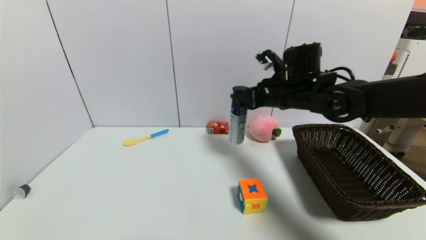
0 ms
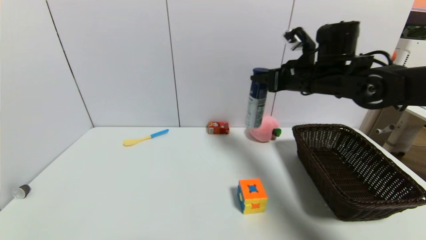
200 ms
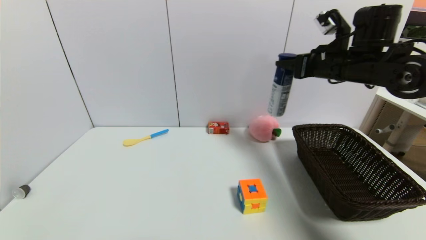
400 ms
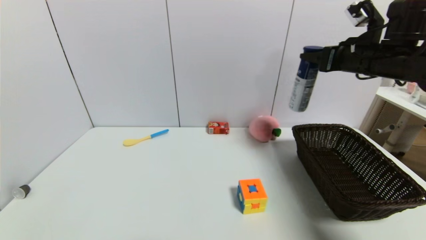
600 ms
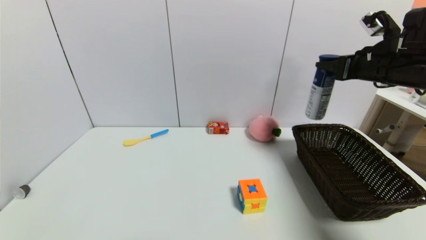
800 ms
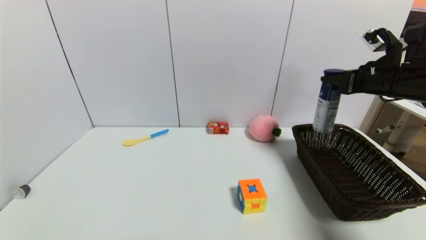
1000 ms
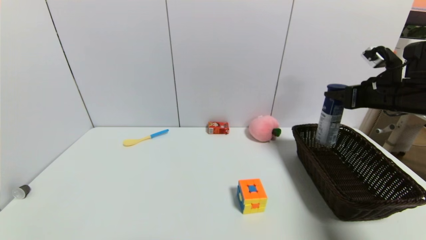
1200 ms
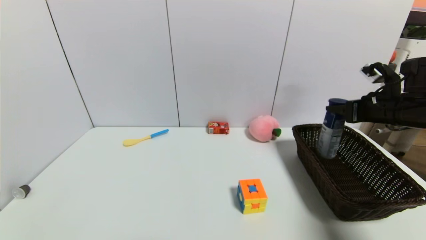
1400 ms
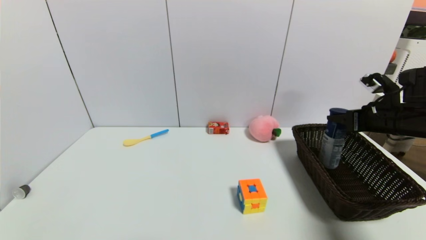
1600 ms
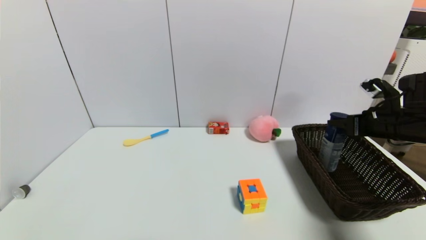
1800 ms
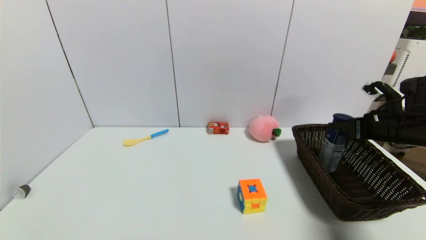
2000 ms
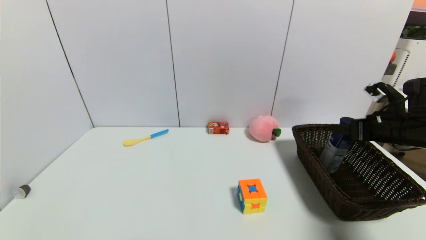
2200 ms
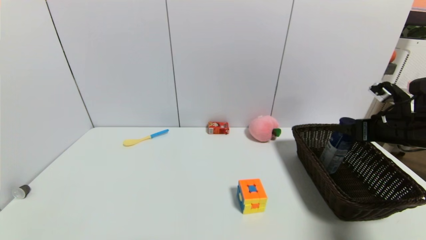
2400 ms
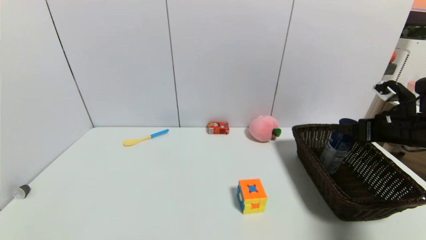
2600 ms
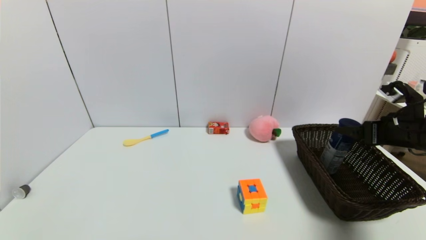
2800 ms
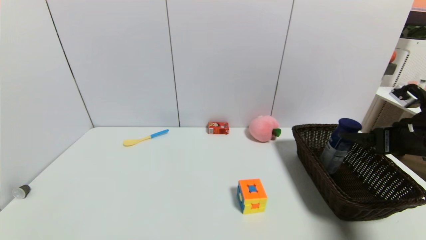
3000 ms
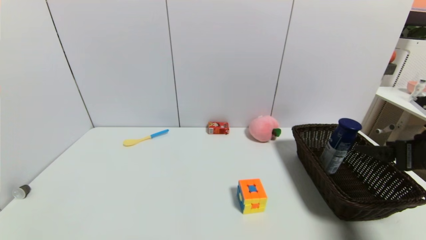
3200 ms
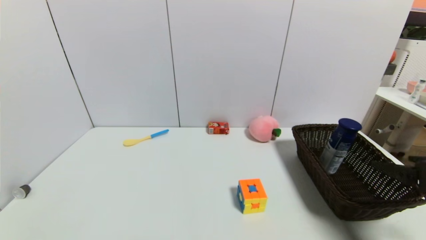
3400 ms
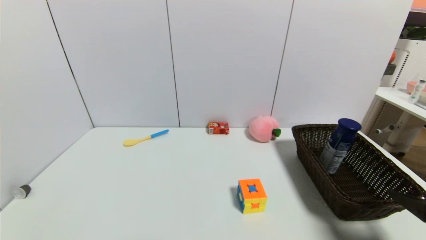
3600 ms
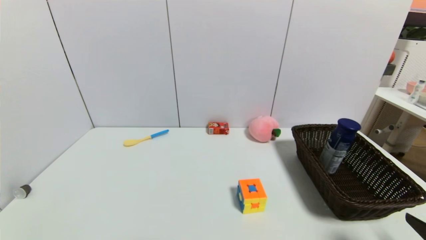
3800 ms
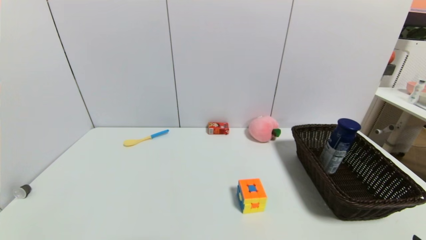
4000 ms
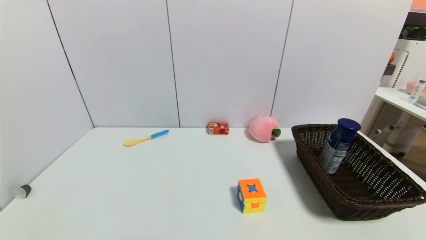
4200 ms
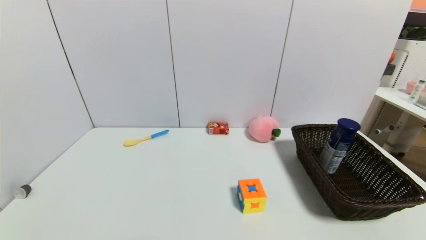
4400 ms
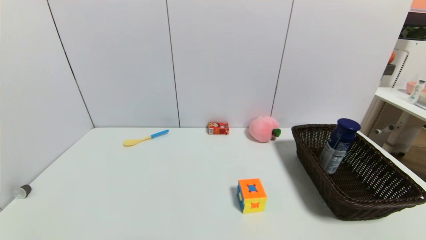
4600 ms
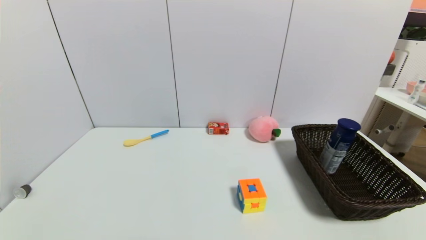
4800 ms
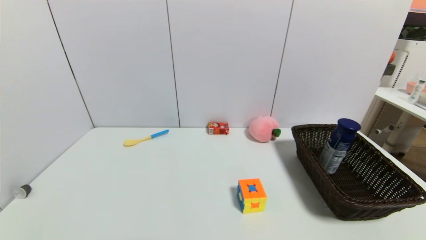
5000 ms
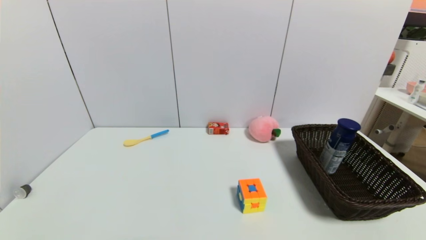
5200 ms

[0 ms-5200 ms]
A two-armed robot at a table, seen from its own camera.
Task of the whole recording: use a gripper to pick the target object and place on the brown basket.
Step, 0 ms to 3200 ms: Place the yogurt into the basket with the right gripper.
0 ms to 1800 ms: The right gripper is displaced to the right by roughly 20 cm.
1800 ms to 3400 ms: The right gripper heads backward, covering roughly 15 cm, and opens up.
3400 ms to 5200 ms: The right gripper travels backward and downward by about 20 cm.
